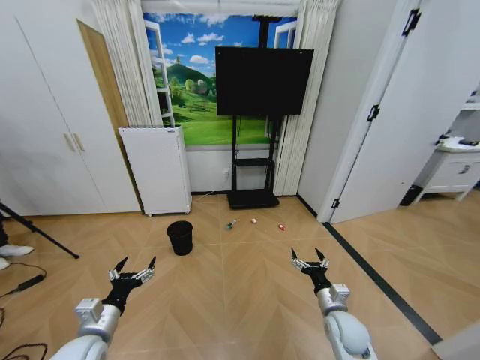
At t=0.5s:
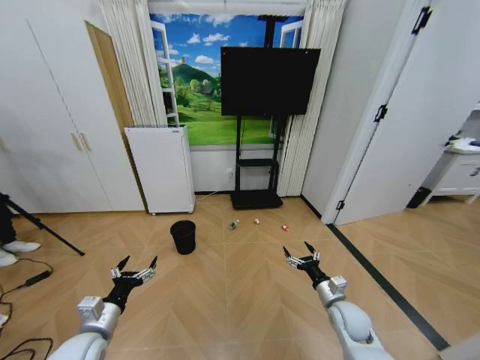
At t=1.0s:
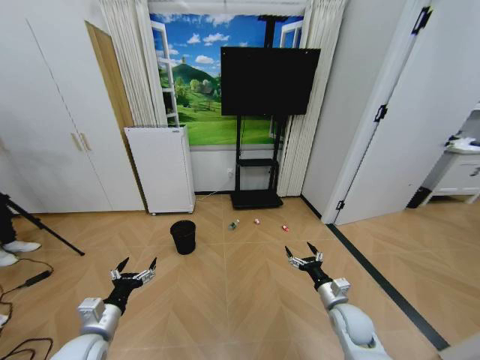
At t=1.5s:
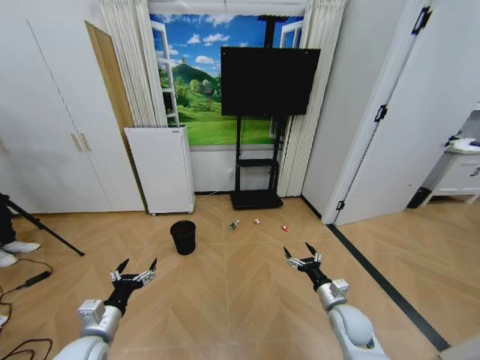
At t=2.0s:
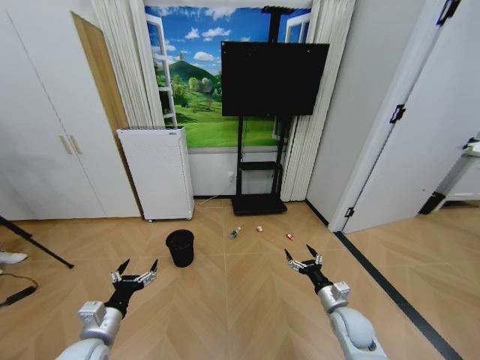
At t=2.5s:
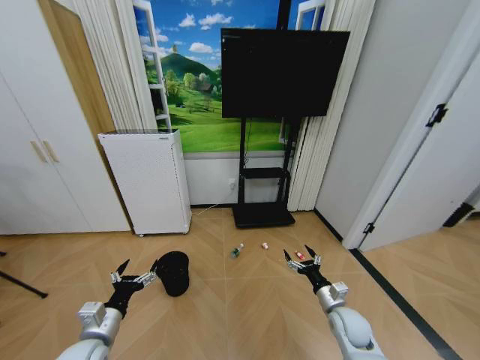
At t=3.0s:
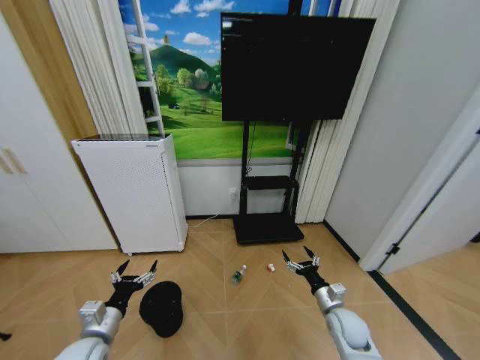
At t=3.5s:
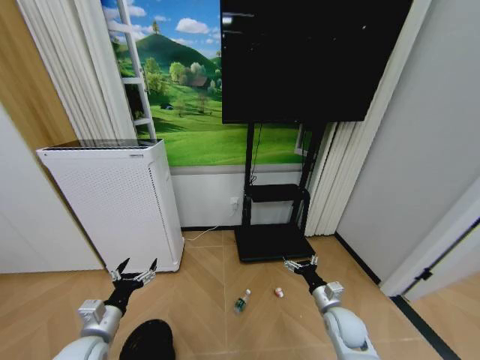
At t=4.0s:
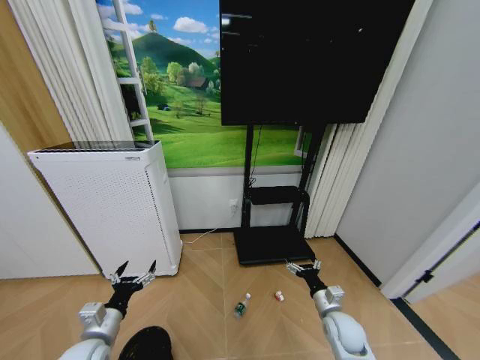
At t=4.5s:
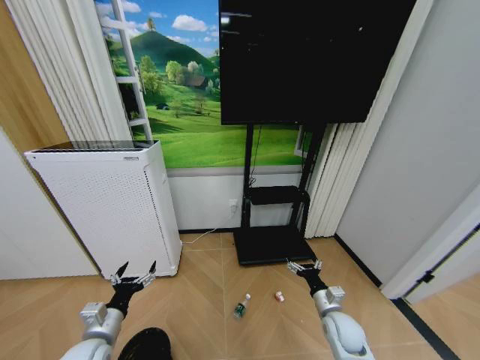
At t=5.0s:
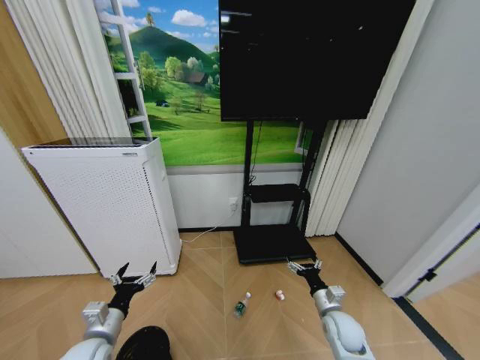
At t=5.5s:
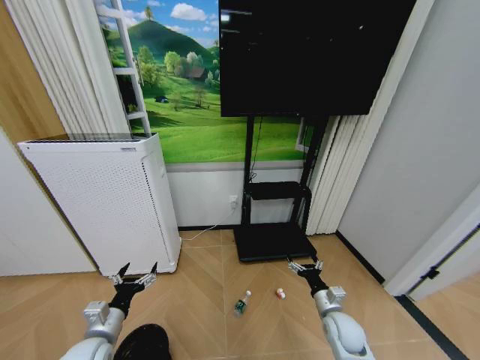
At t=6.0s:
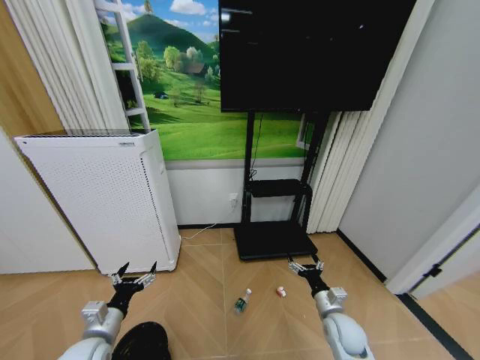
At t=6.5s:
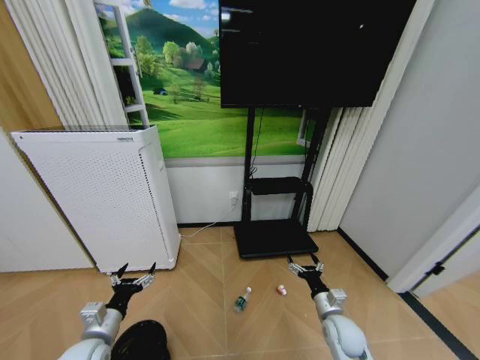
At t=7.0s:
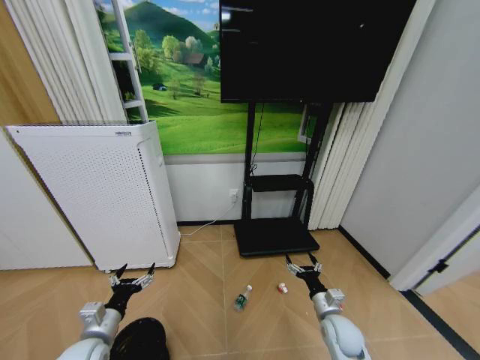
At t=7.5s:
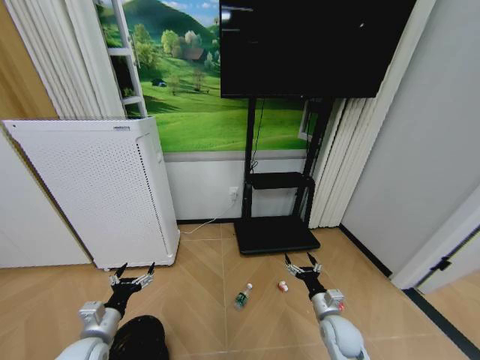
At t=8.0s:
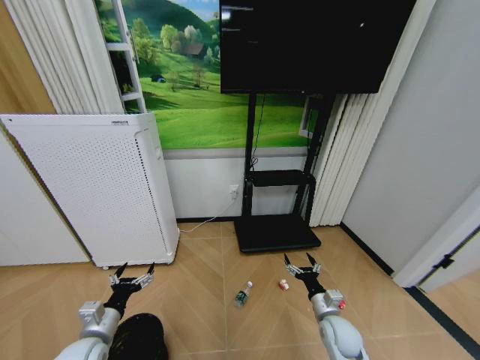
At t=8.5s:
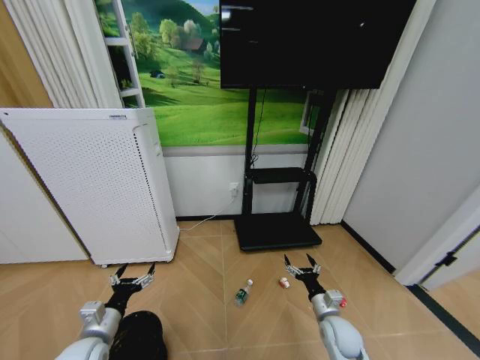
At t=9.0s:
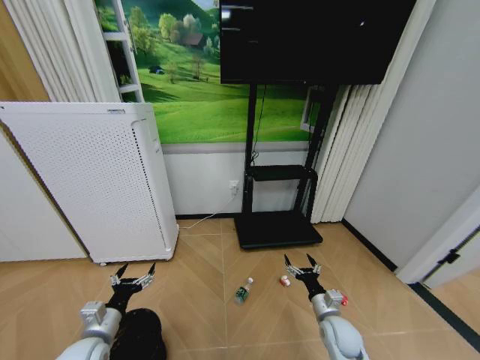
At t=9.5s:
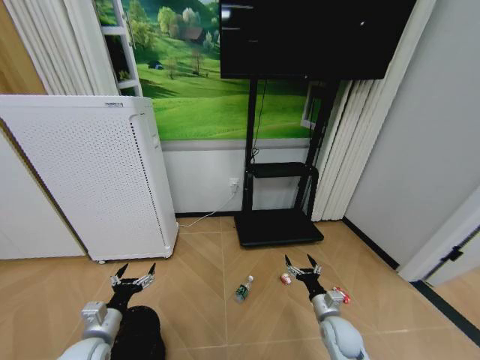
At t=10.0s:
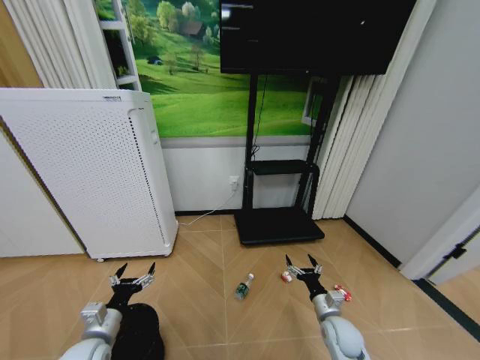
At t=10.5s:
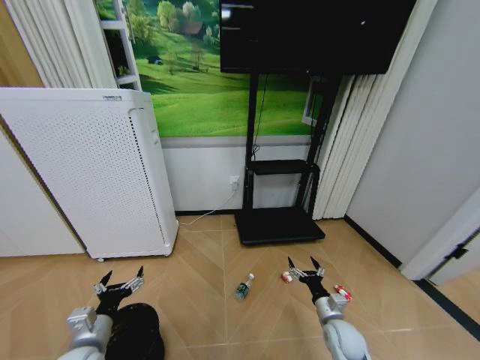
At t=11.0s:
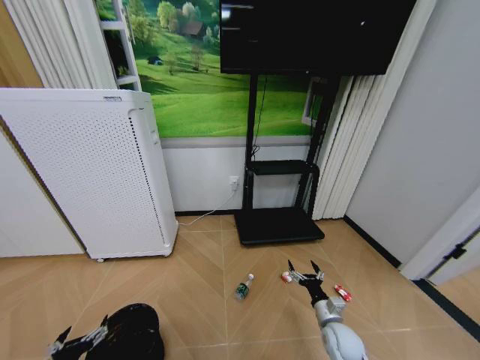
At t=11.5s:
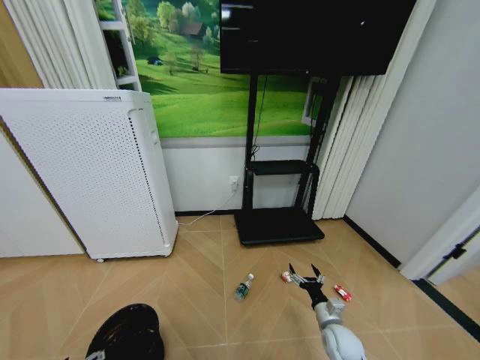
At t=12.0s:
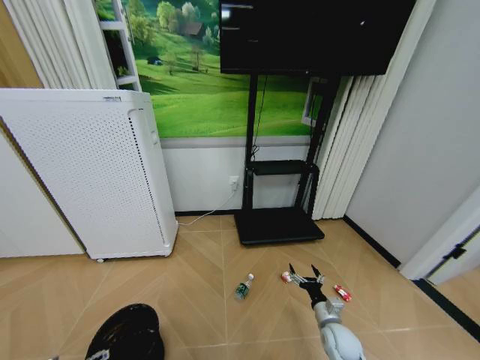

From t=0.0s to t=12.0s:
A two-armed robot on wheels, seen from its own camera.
Task of the whole recording: Pick up the trash bin and place the garbage on the floor into it.
From t=4.0s to t=6.0s: The two grippers keep their place.
From t=6.0s to t=8.0s: Neither gripper changes place.
From t=8.0s to t=10.0s: Neither gripper changes place.
From t=10.0s to t=12.0s: The left gripper shifts some 10 cm backward and to the left.

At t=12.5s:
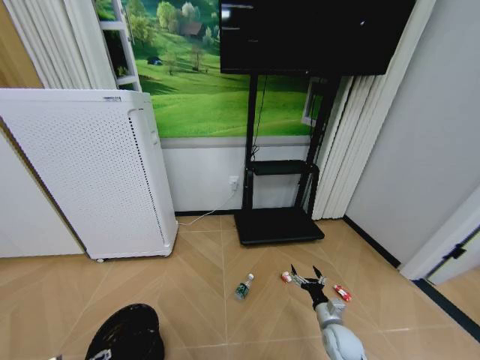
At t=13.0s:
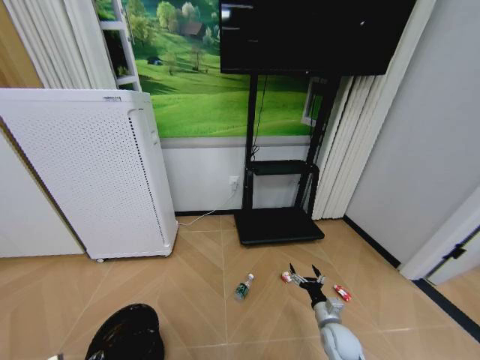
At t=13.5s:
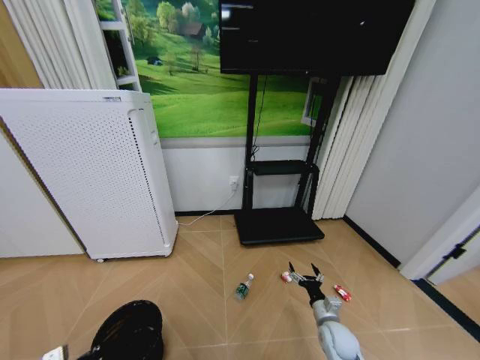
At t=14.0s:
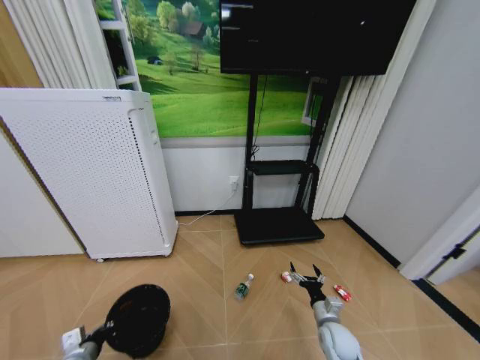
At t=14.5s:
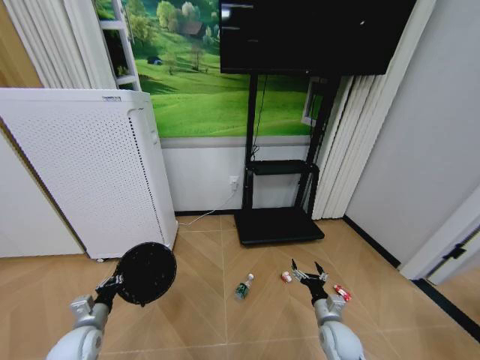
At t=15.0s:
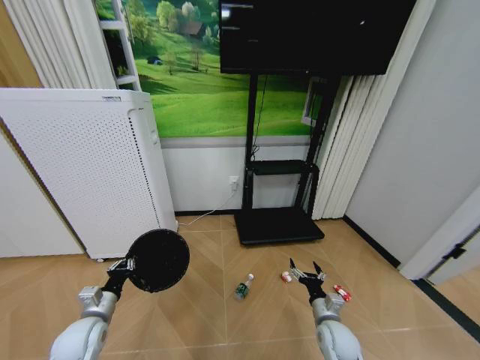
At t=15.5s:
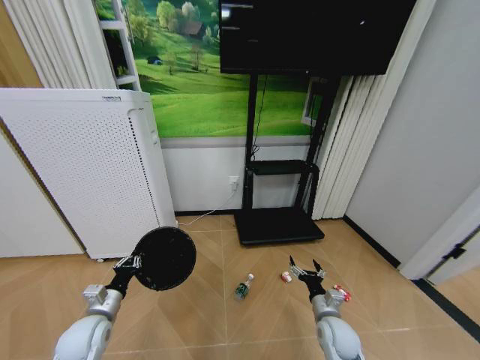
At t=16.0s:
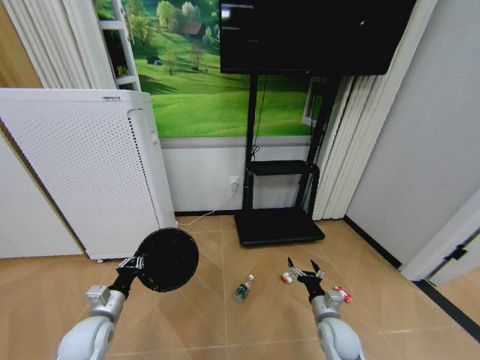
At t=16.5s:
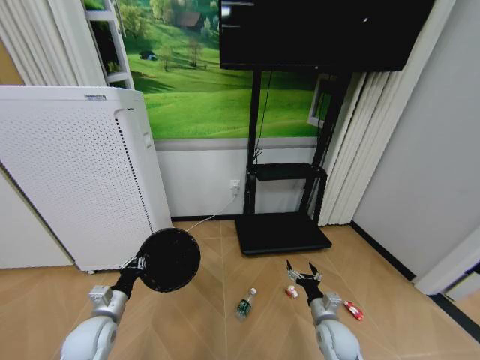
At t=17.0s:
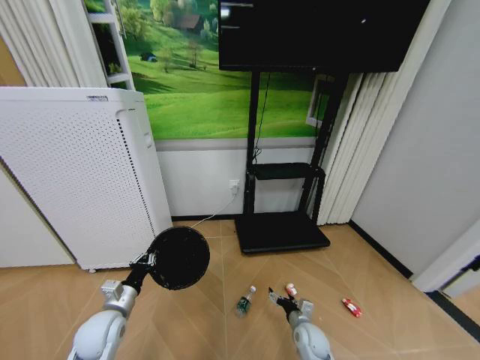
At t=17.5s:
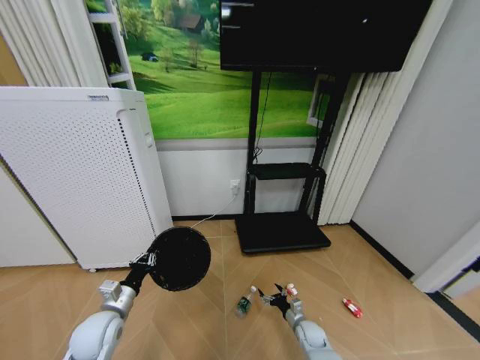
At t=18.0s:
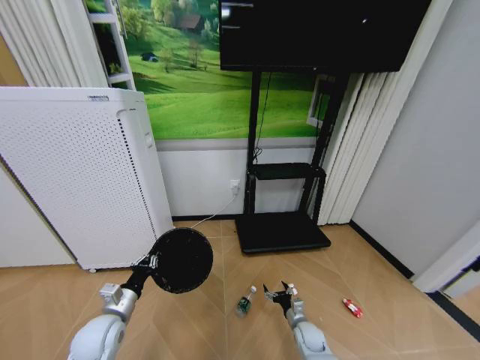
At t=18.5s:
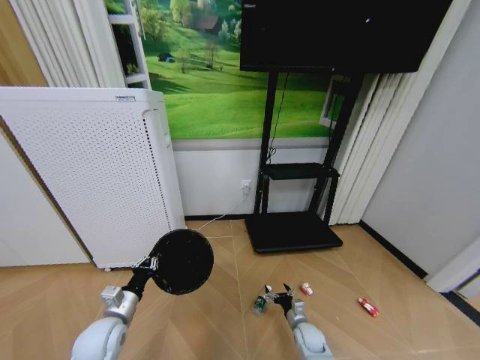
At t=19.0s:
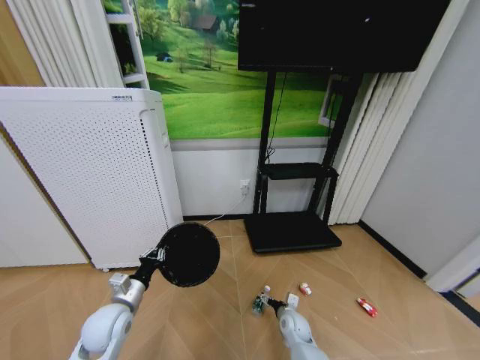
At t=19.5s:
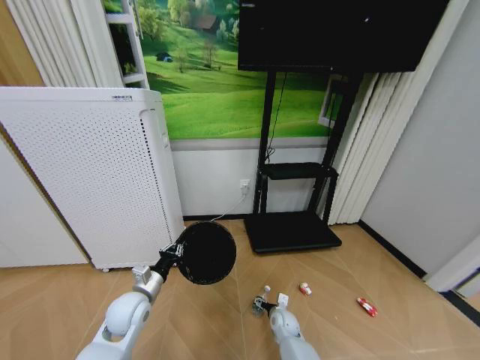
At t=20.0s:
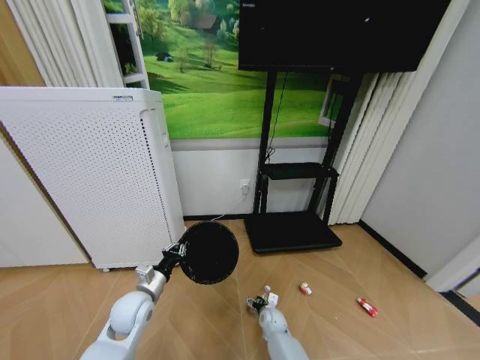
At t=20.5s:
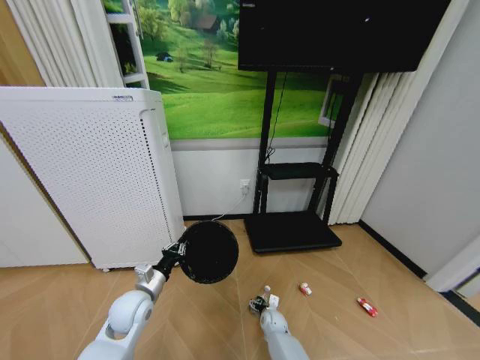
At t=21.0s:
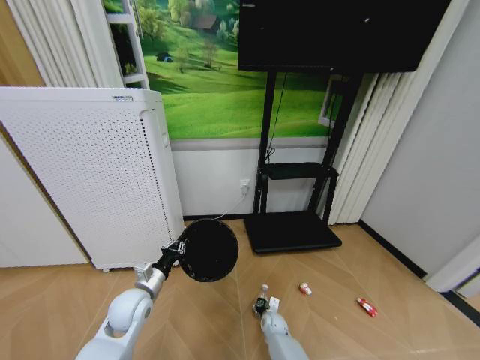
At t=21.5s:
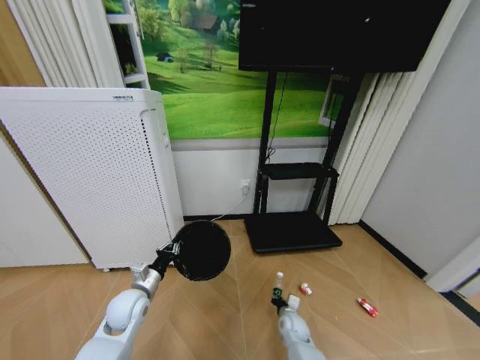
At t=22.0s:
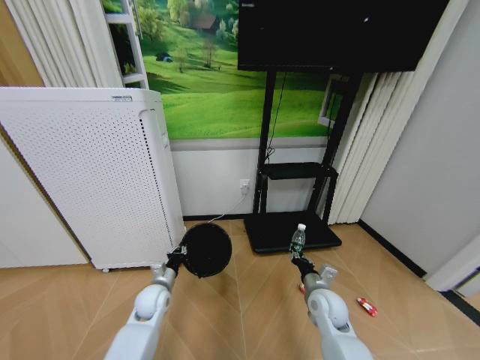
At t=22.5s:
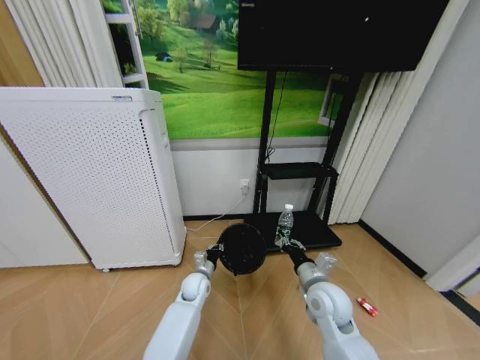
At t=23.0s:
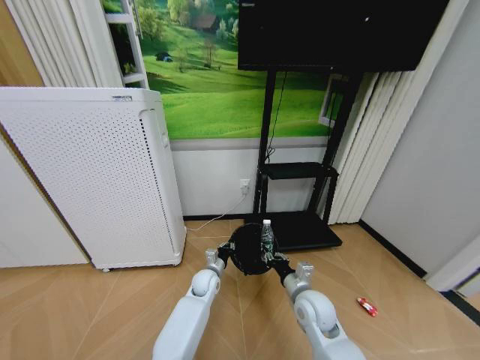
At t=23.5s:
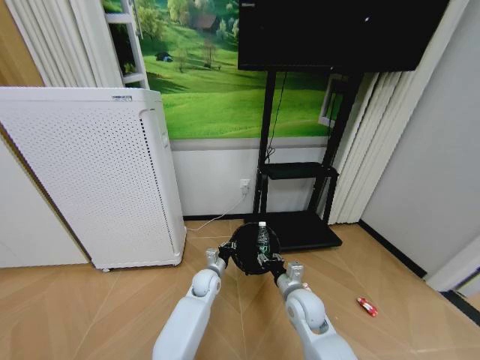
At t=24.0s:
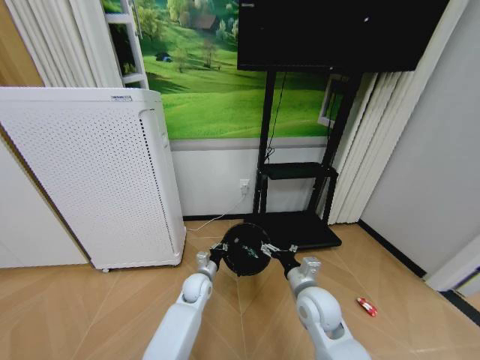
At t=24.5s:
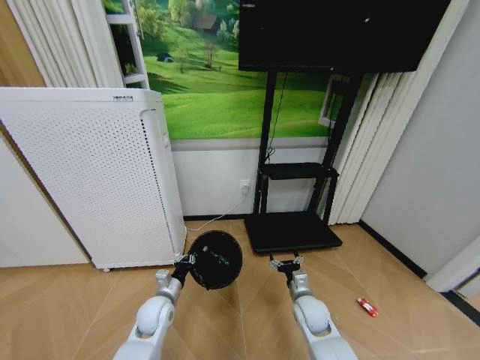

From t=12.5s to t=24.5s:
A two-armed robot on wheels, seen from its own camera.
Task of the whole recording: Pick up the trash bin and place the garbage on the floor into it.
From t=12.5s to t=14.5s: The left gripper goes roughly 10 cm forward, and closes.
From t=14.5s to t=16.5s: The left gripper heads to the right, covering about 5 cm.
From t=16.5s to t=18.5s: The right gripper heads downward, covering some 15 cm.
From t=18.5s to t=20.5s: The left gripper goes some 10 cm forward and to the right. Meanwhile the right gripper goes approximately 10 cm to the left and forward.
From t=20.5s to t=22.5s: The left gripper goes roughly 20 cm to the right, forward and downward. Meanwhile the right gripper goes approximately 30 cm upward, and closes.
From t=22.5s to t=24.5s: The right gripper shifts some 10 cm downward, and opens. Meanwhile the left gripper moves to the left and backward, roughly 15 cm.

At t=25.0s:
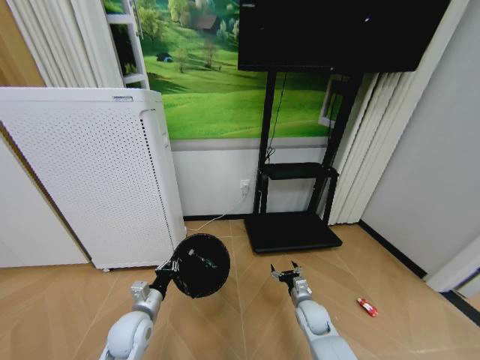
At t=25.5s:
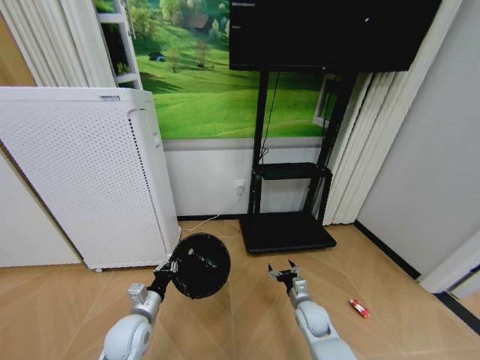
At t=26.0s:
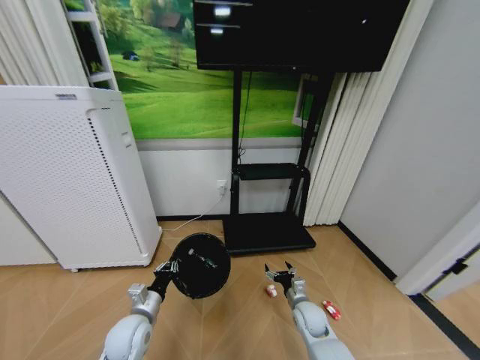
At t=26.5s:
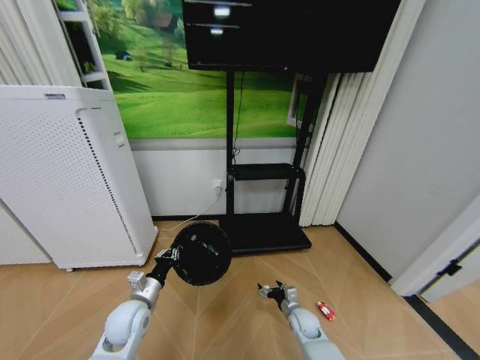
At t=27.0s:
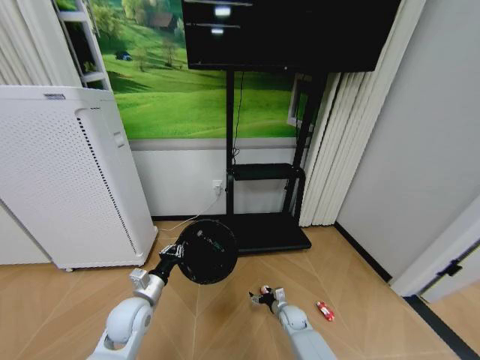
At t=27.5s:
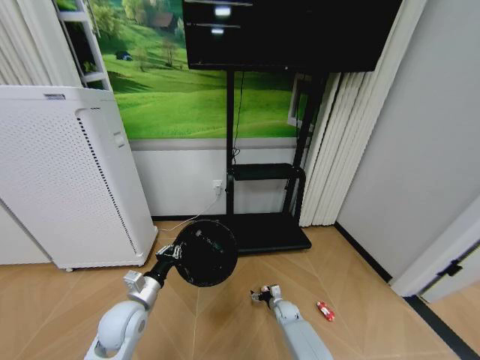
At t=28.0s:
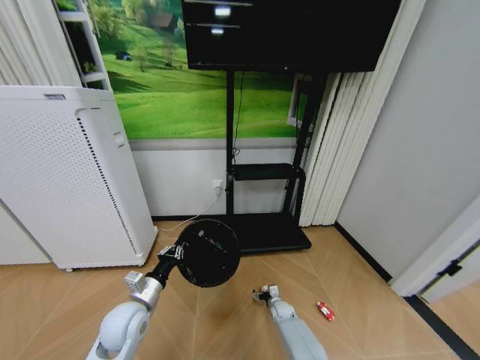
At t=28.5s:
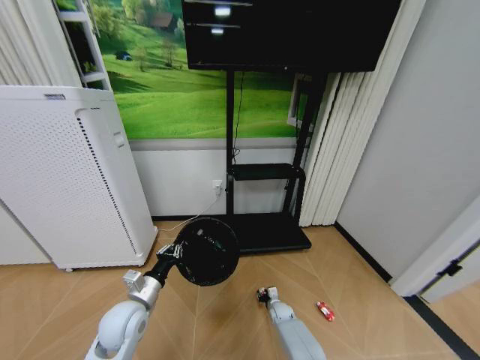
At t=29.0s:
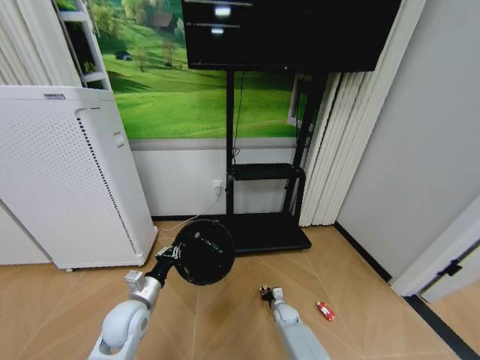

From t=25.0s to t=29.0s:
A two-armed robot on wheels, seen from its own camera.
Task of the whole recording: Pick up the trash bin and place the garbage on the floor into it.
From t=25.0s to t=27.0s: The right gripper heads downward, covering some 10 cm.
From t=27.0s to t=29.0s: The right gripper shifts by about 5 cm, and closes.
